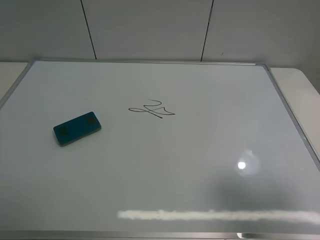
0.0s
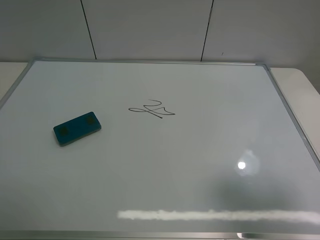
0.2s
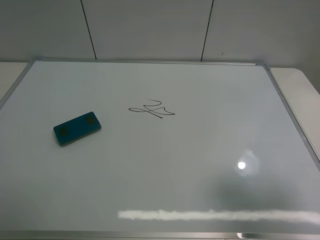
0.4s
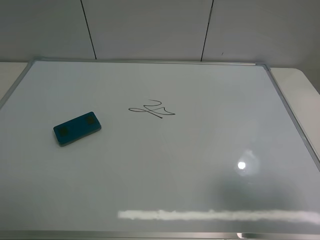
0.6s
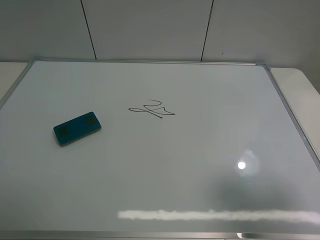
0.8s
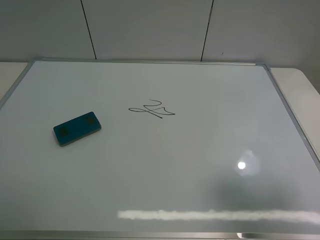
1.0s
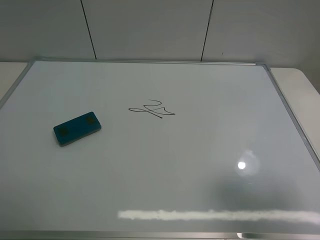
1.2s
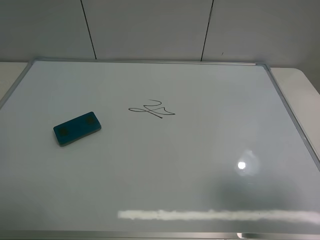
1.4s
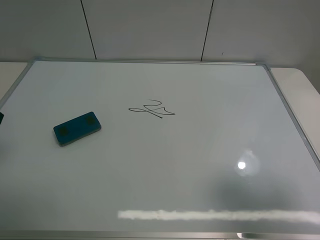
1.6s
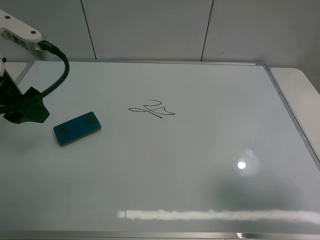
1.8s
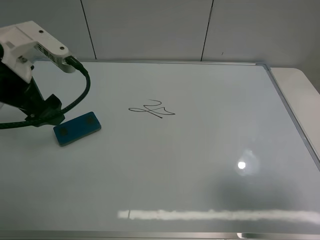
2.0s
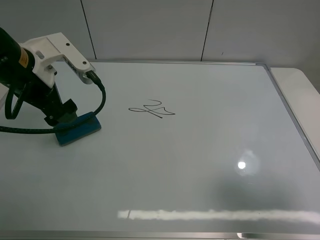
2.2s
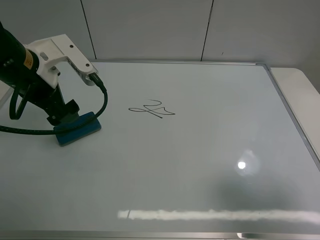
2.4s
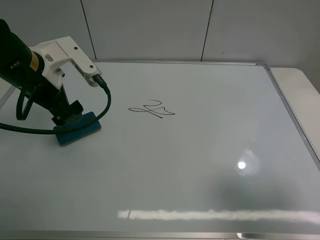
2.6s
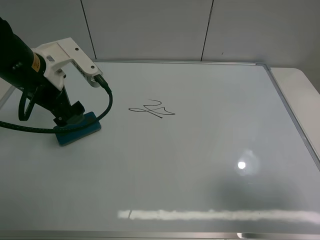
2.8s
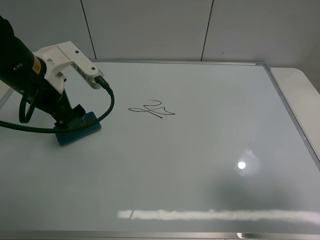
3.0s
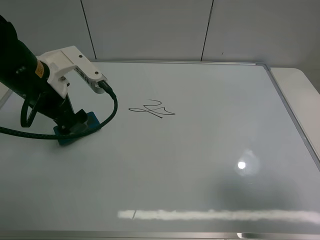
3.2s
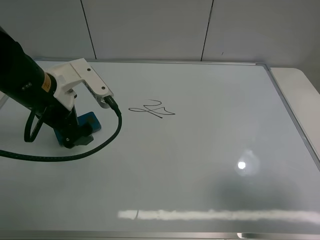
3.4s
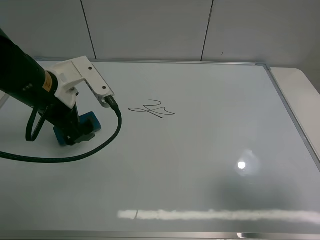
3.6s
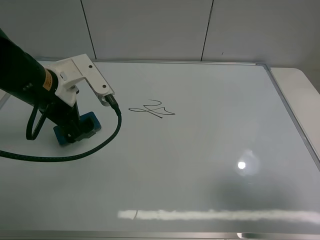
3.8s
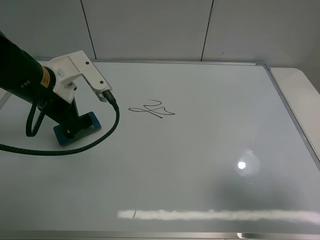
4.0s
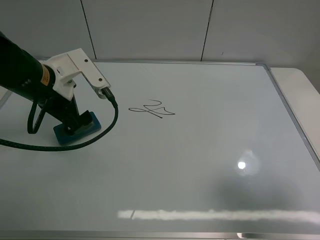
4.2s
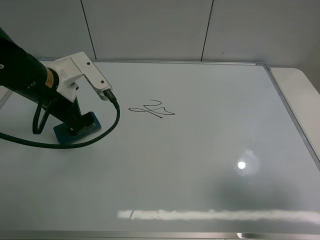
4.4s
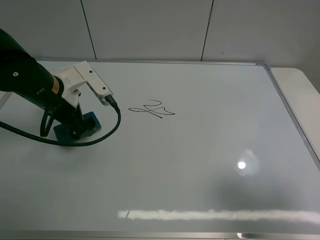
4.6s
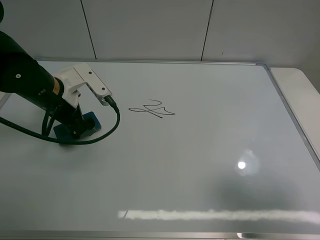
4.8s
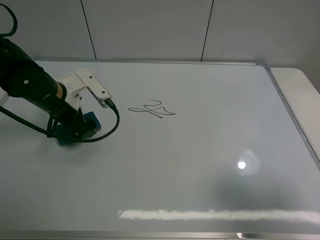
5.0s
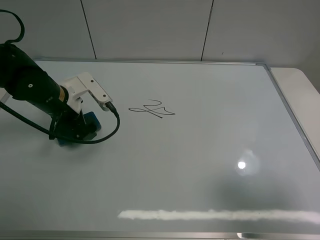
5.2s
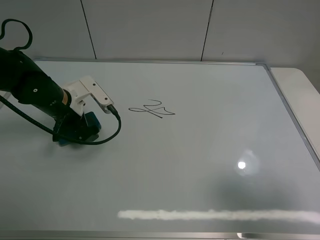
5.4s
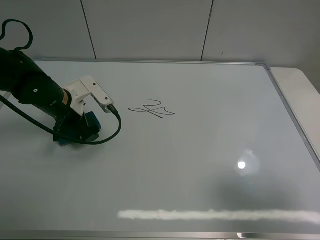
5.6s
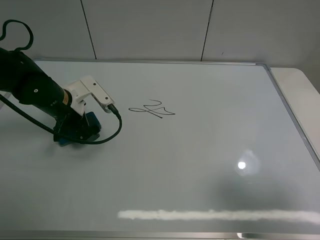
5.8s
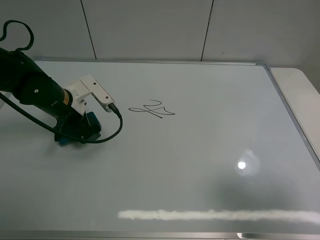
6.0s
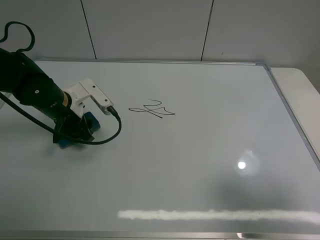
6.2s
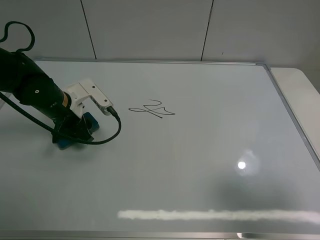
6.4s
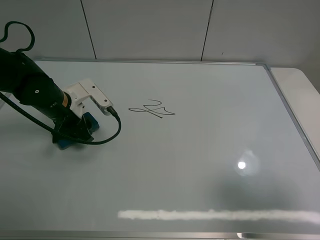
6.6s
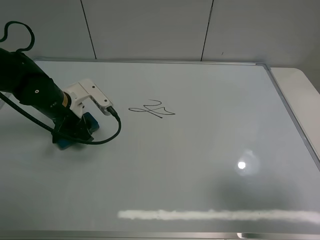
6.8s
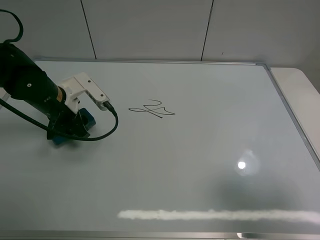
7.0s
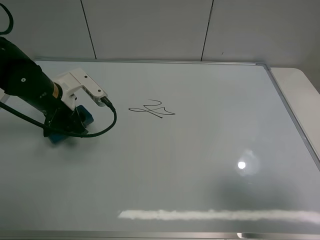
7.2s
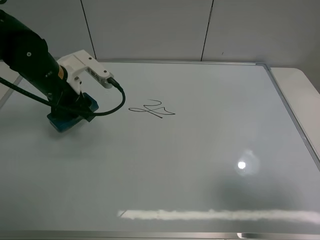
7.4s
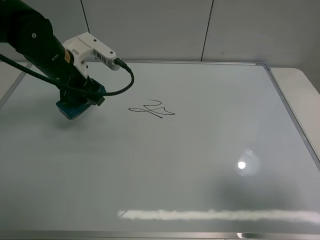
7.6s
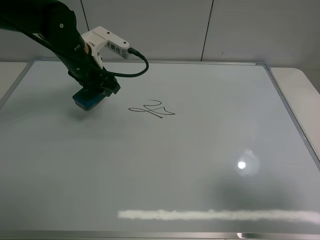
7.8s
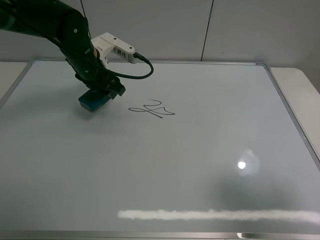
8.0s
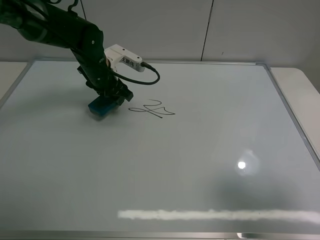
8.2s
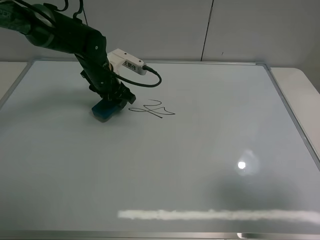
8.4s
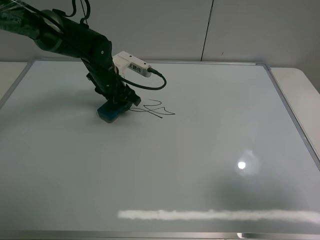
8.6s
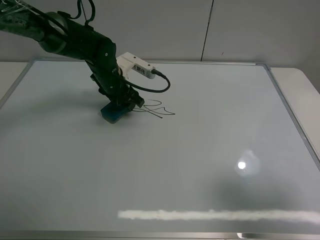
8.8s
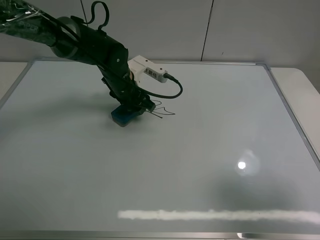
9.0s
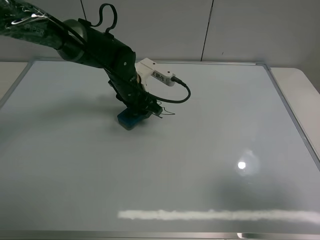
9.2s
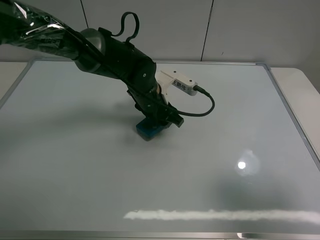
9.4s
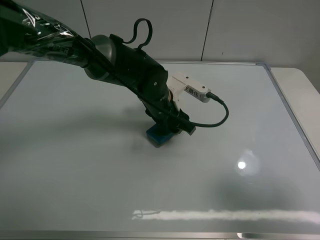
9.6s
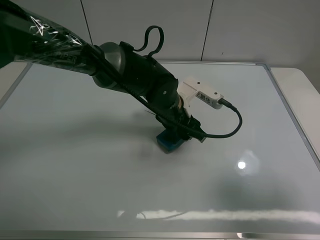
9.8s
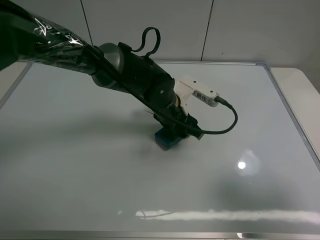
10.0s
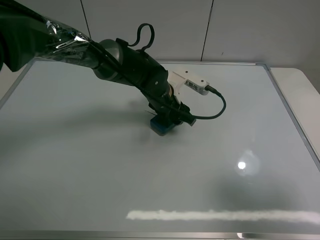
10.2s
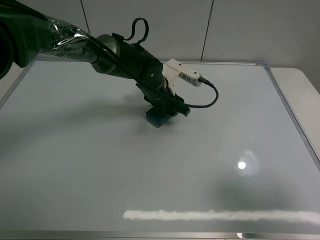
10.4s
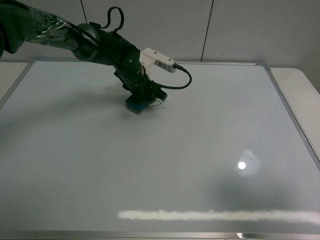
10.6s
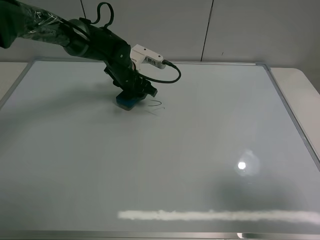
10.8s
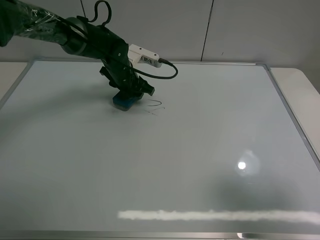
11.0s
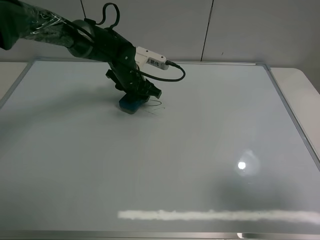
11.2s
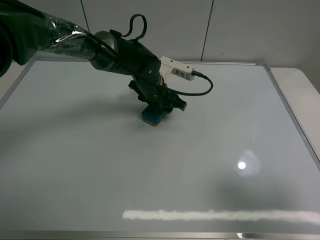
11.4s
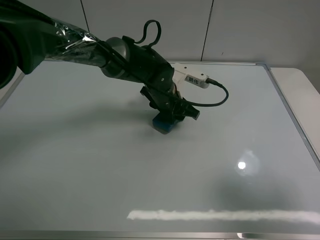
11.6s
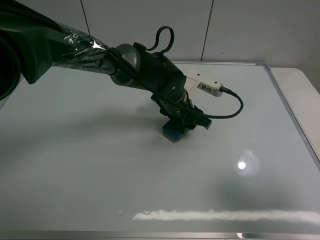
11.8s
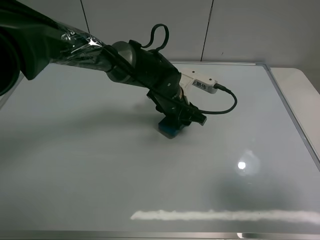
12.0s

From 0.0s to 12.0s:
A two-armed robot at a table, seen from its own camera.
Task of the whole recording: use the left claw to pick up the whiteboard eraser, wipe the notes on the whiteboard clean, and then put them back in place.
Step, from 0.0s to 6.4s: Grasp the eraser with the left gripper.
From 1.6s to 3.0s: The left gripper travels forward, to the right and downward by approximately 15 cm.
From 3.0s to 4.4s: The grippers make only small movements.
From 4.4s to 6.0s: The left gripper is displaced downward by about 5 cm.
From 6.0s to 7.6s: The left gripper travels upward by approximately 10 cm, and closes its fingers.
From 7.6s to 9.0s: The left gripper heads to the right, downward and forward, covering about 15 cm.
From 9.0s to 10.4s: The left gripper goes about 5 cm to the right.
From 10.4s to 12.0s: The left gripper moves some 10 cm to the left and comes back.

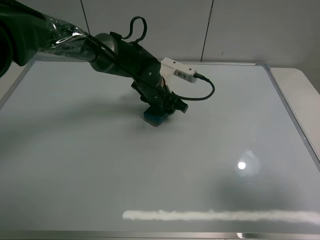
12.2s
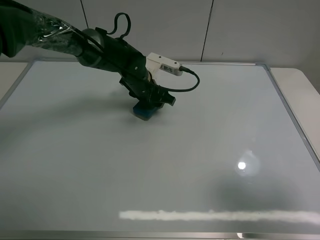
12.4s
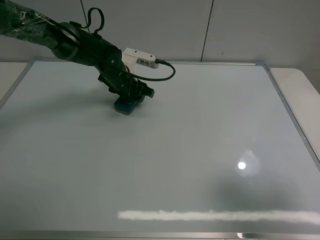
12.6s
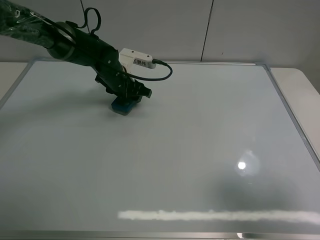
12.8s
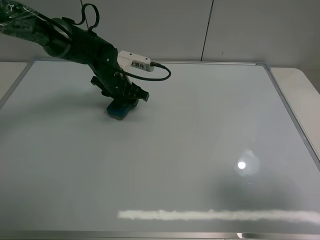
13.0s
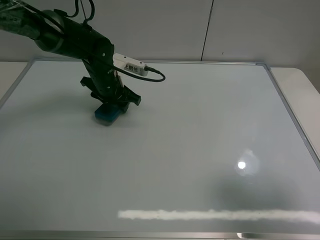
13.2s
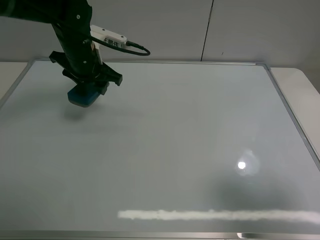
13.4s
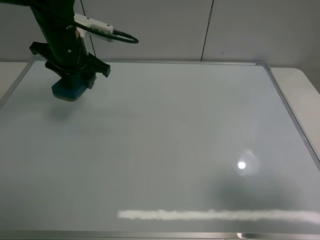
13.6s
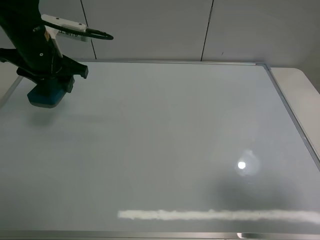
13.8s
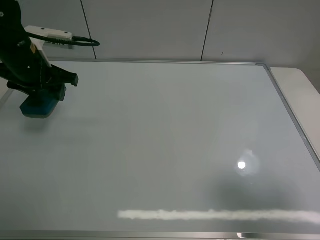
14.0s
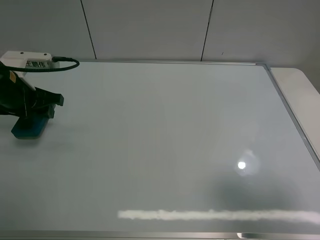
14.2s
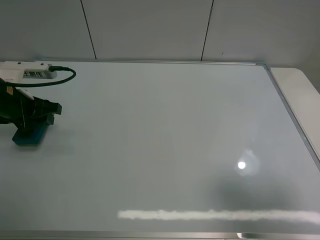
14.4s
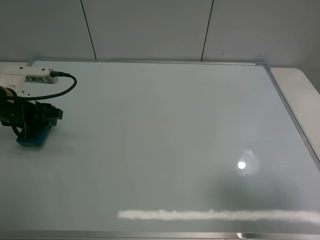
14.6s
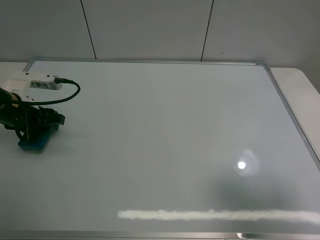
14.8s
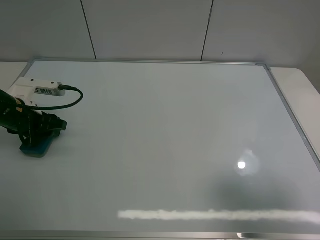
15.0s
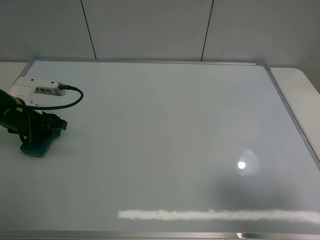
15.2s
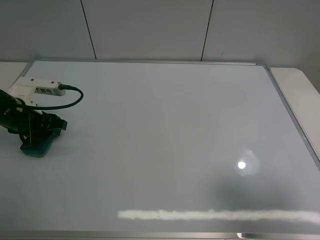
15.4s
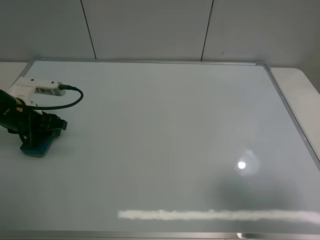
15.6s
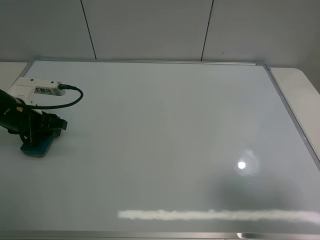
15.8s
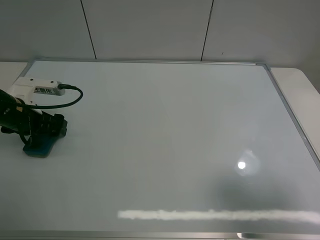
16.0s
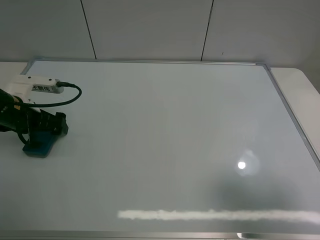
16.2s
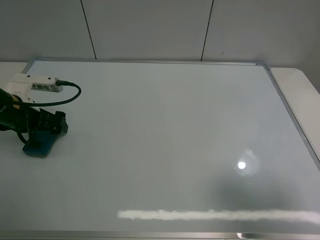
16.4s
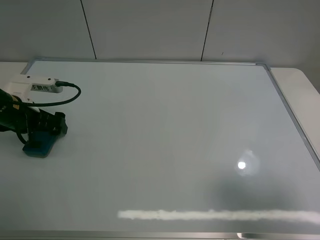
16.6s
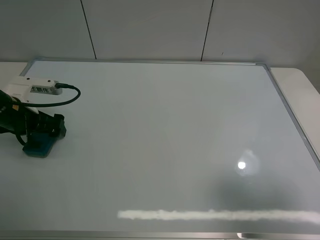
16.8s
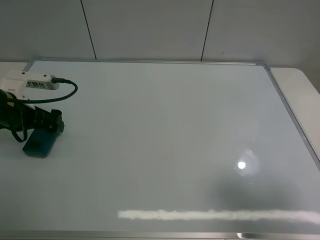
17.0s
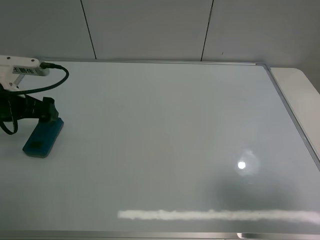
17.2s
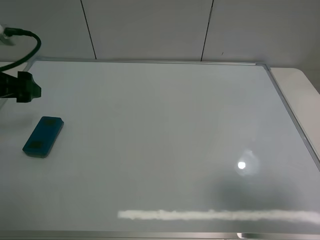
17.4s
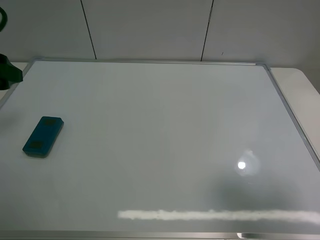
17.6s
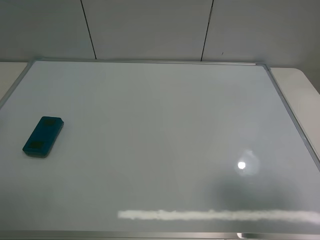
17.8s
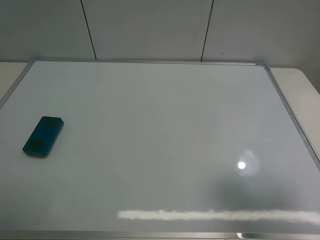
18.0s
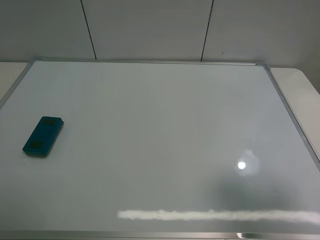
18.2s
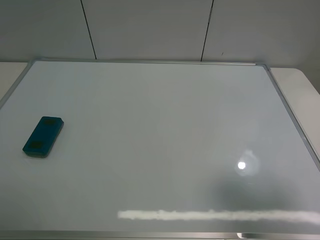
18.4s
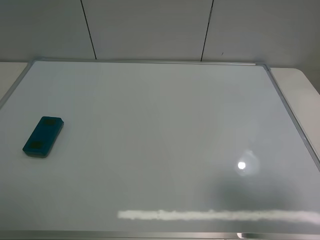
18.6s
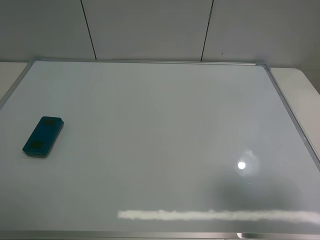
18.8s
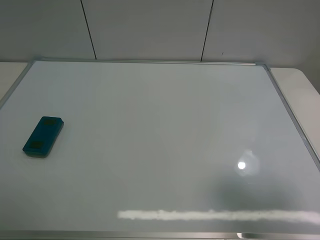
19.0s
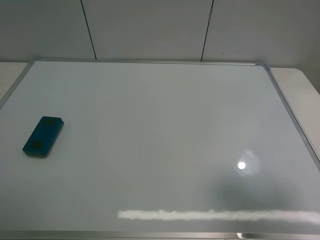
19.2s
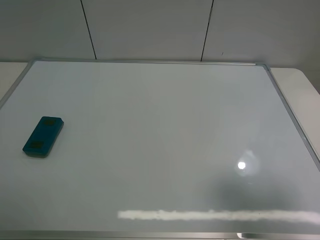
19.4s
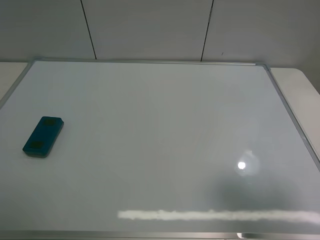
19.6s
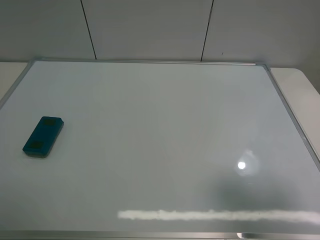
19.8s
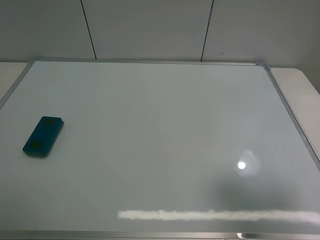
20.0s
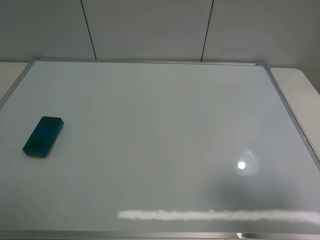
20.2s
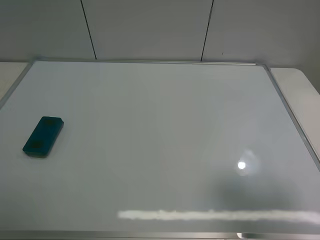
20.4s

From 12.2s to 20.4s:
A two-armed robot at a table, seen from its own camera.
Task of the whole recording: use the left claw to pick up the whiteboard eraser, wipe the notes on the whiteboard clean, and then put them back in place.
Step, from 13.2s to 16.0s: Place the eraser with the left gripper.
From 12.2s to 13.8s: The left gripper heads to the left and upward, covering some 25 cm.
From 13.8s to 15.4s: The left gripper travels downward, to the left and backward by roughly 15 cm.
From 15.4s to 17.2s: The left gripper travels upward by roughly 5 cm, and opens.
From 17.2s to 18.8s: The left gripper is displaced backward and upward by approximately 30 cm.
